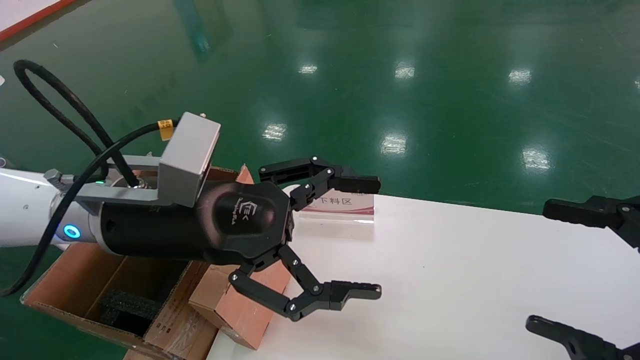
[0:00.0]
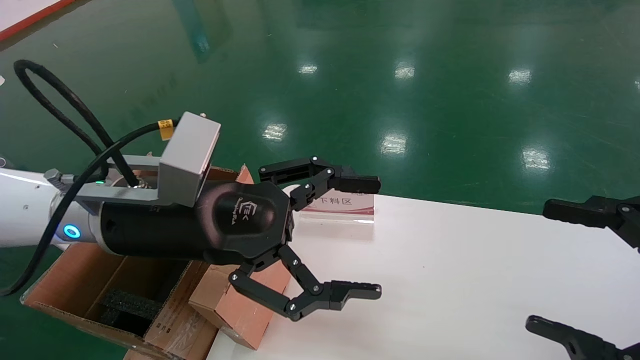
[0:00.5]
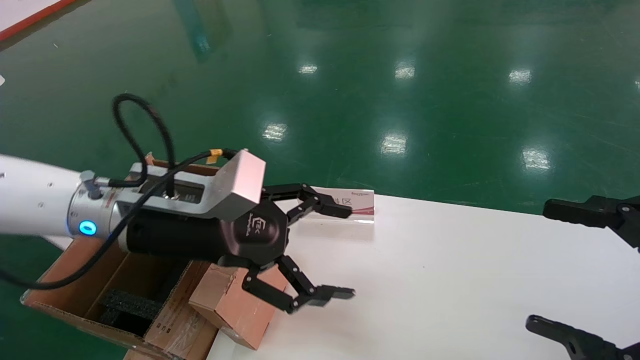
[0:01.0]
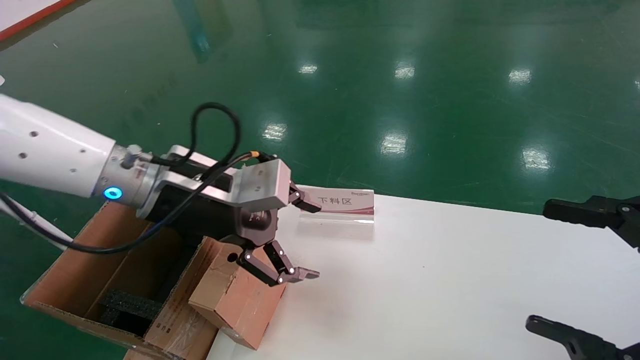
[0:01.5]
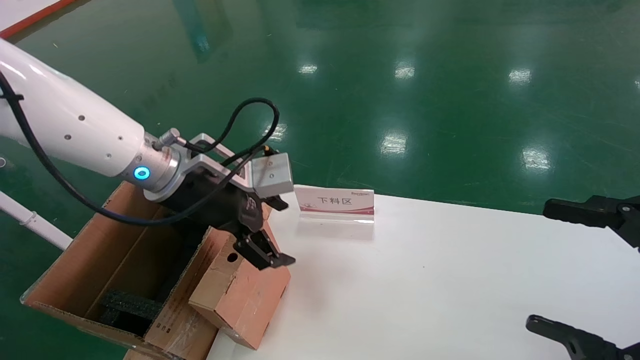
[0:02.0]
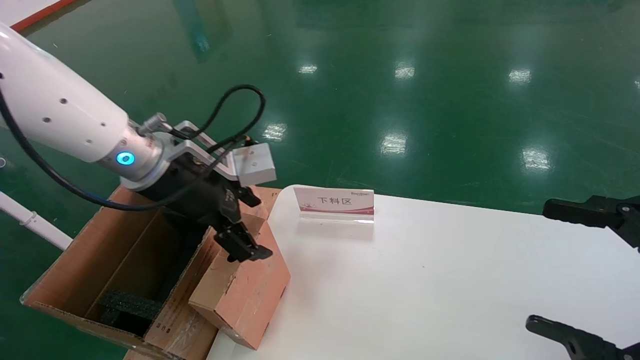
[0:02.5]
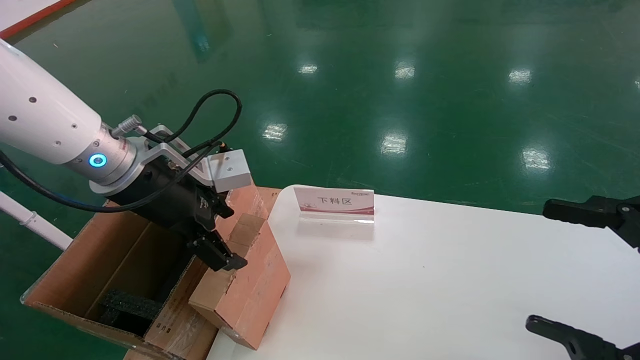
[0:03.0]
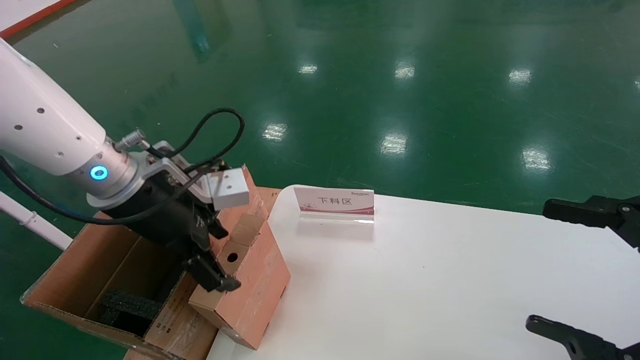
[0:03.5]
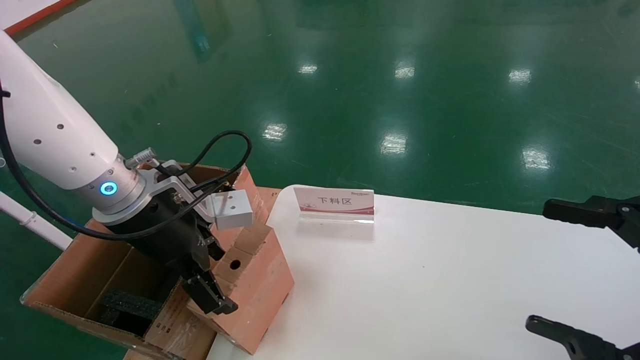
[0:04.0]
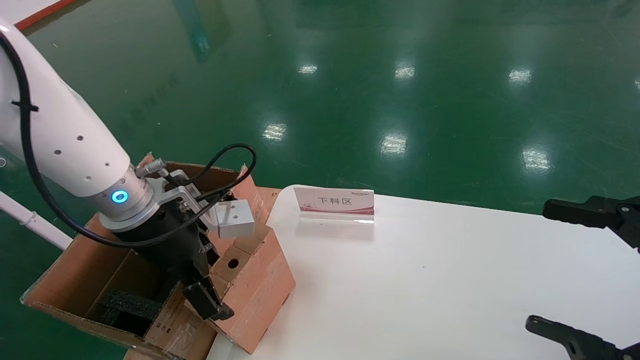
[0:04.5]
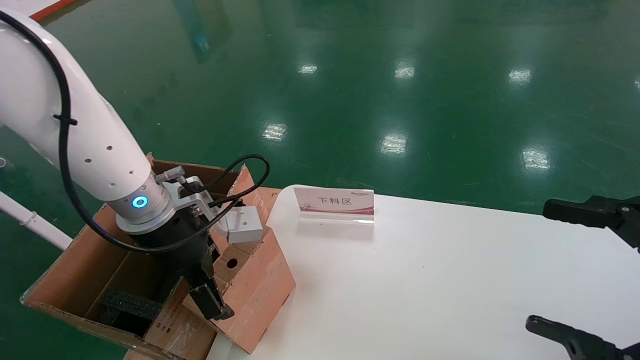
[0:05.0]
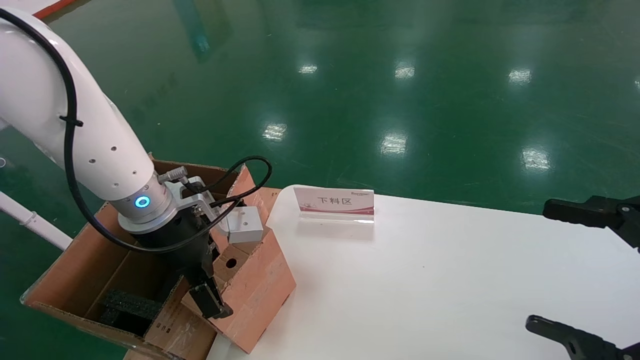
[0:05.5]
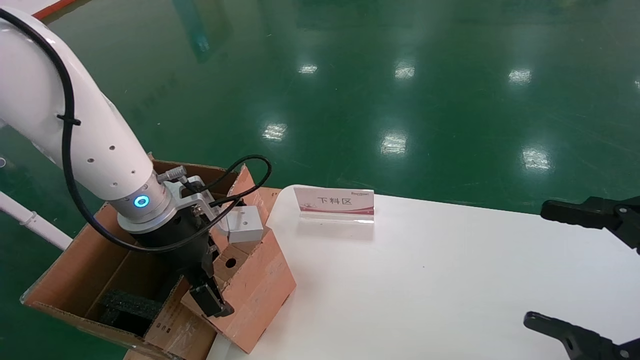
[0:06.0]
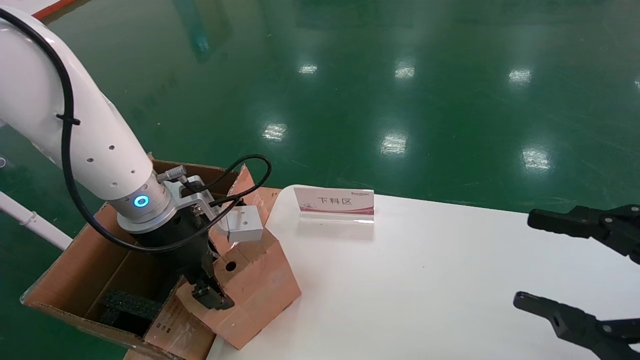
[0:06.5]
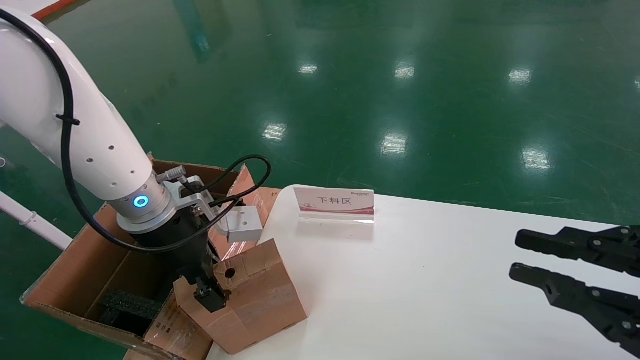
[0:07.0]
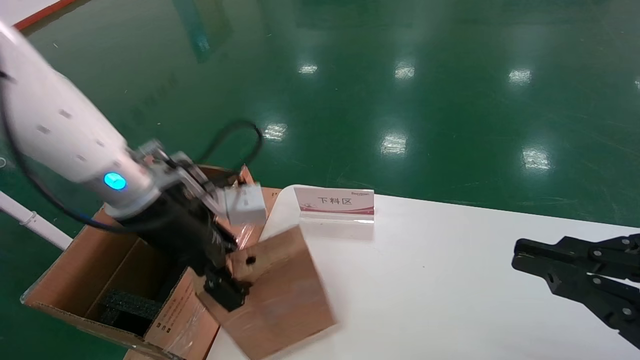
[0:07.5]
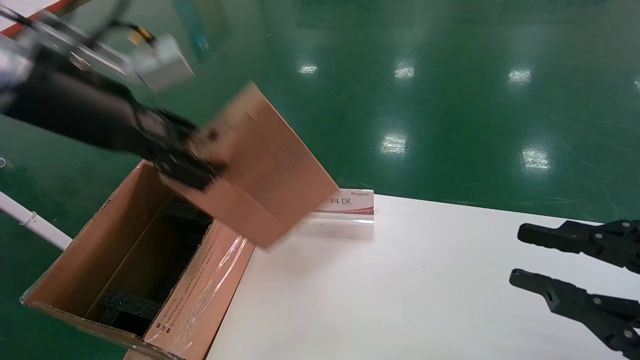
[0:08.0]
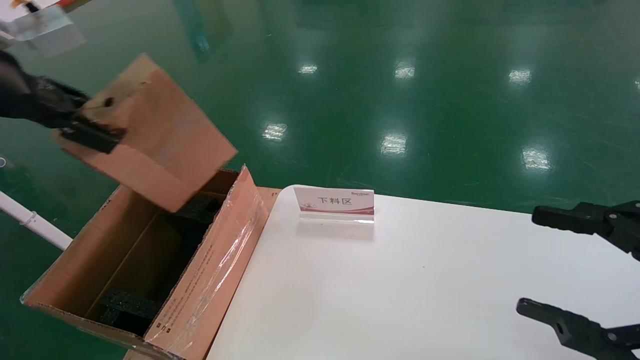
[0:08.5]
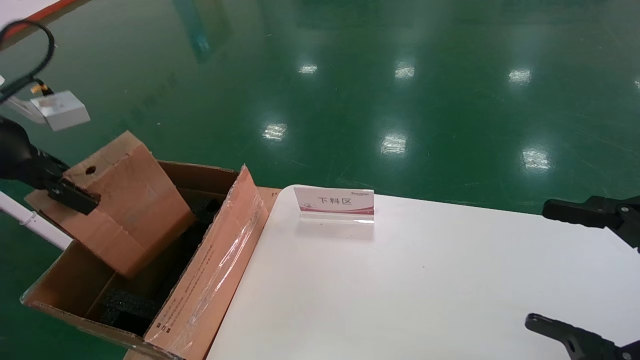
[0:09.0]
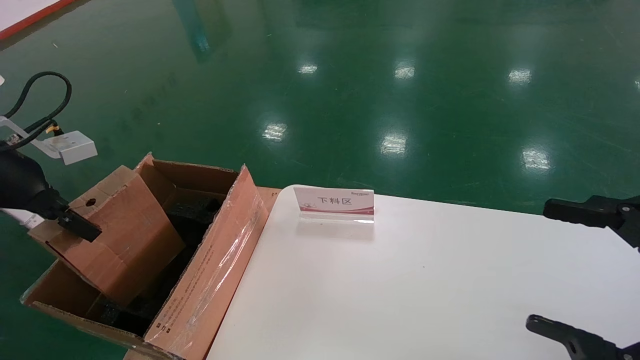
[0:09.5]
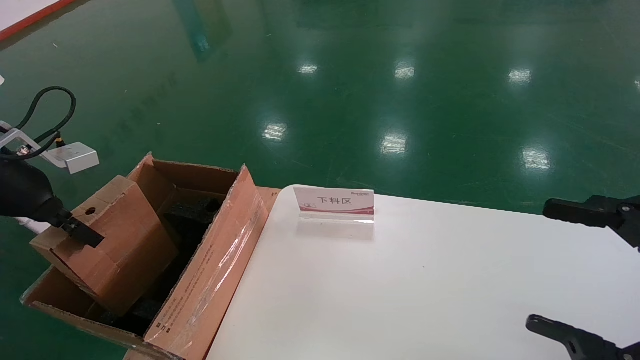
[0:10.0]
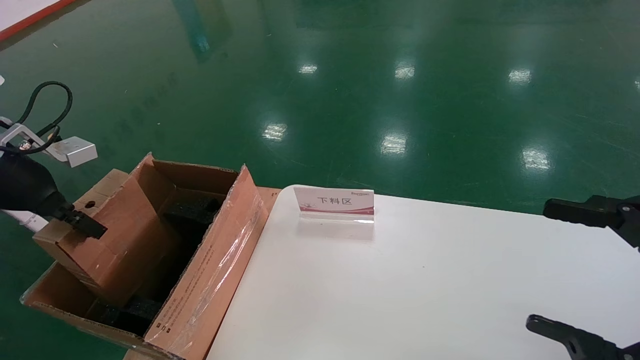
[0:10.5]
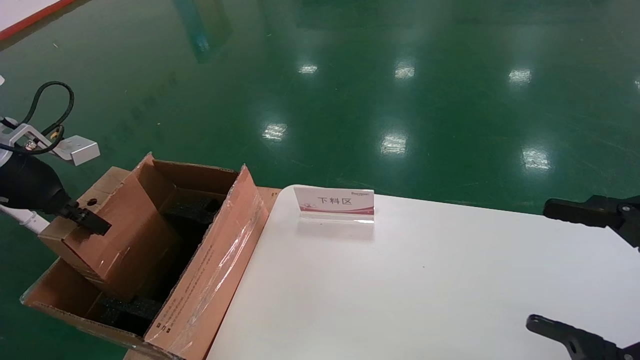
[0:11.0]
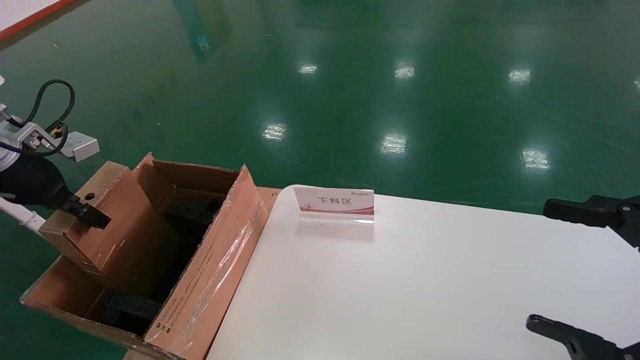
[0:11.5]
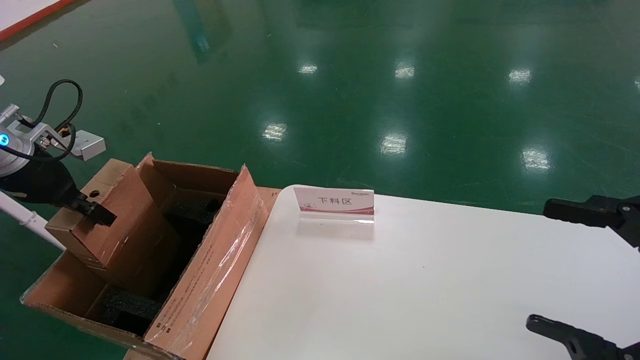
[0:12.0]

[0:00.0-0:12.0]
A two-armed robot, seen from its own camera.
Task of the whole recording: pick up the small cardboard box and load it into the large cardboard box.
Step, 0:01.0 to 0:05.5: Pick up the mouse and power cord box.
0:00.0 to 0:02.0: The left gripper goes roughly 10 cm forward.
0:04.0 to 0:06.0: The grippers make only small movements.
0:06.0 to 0:08.0: The right gripper closes up. The left gripper moves upward and to the left, about 15 cm, and closes its fingers.
0:08.0 to 0:10.0: The left gripper goes roughly 20 cm to the left and downward, while the right gripper opens up.
0:10.0 to 0:12.0: The grippers make only small movements.

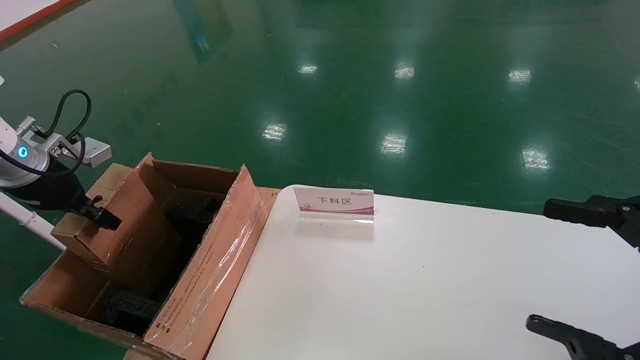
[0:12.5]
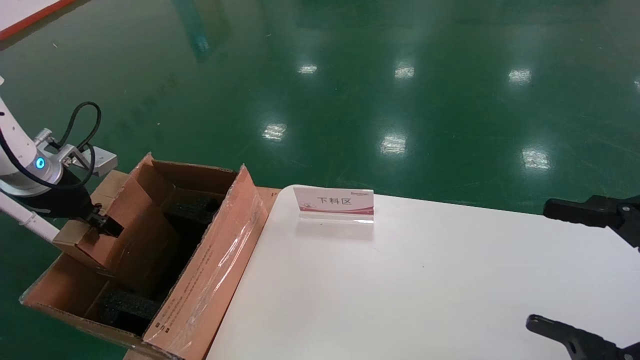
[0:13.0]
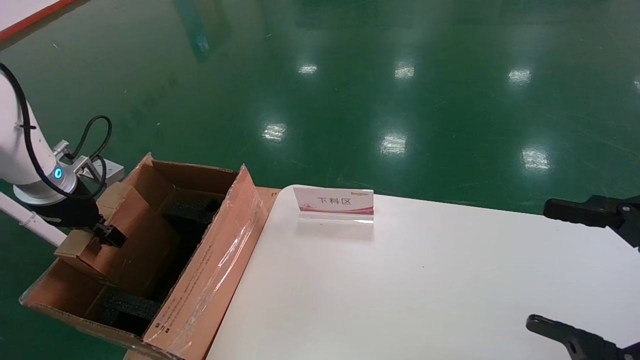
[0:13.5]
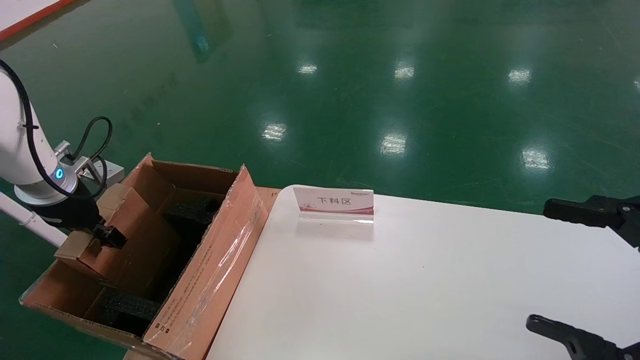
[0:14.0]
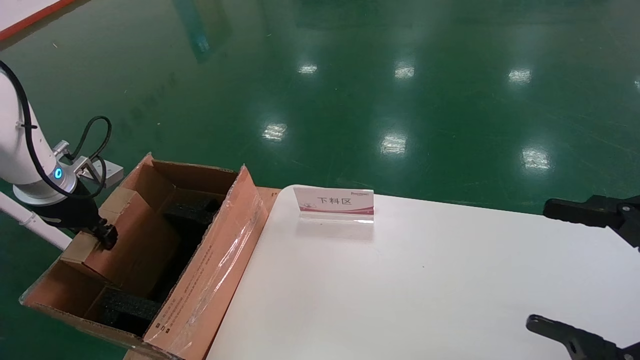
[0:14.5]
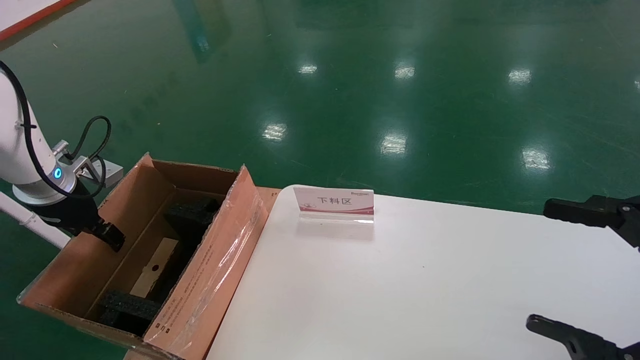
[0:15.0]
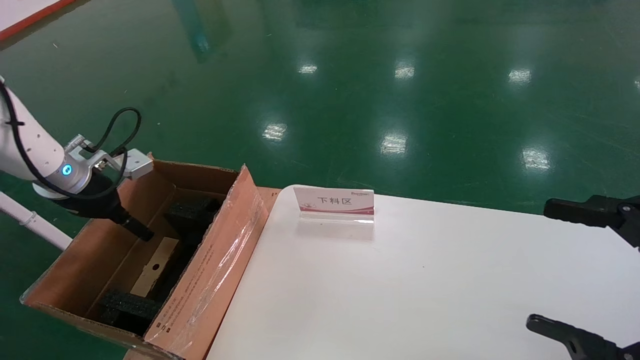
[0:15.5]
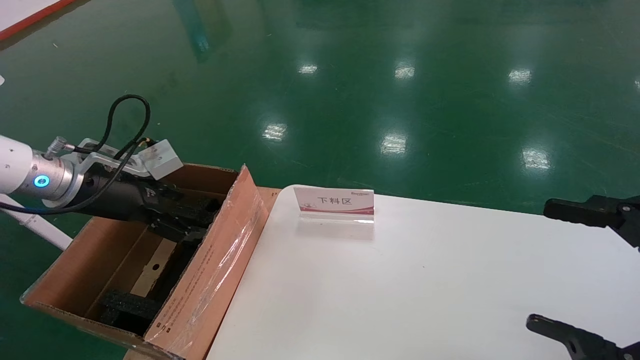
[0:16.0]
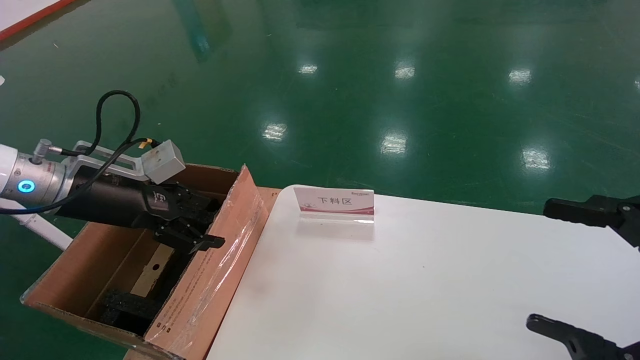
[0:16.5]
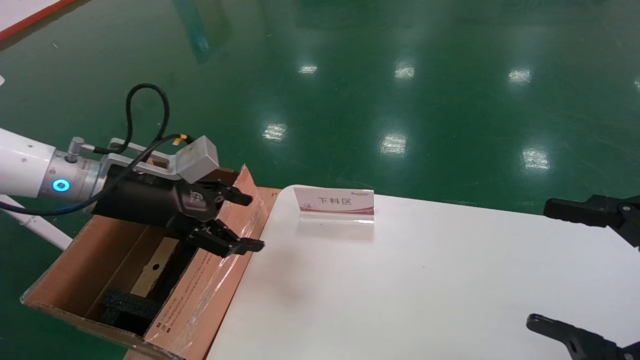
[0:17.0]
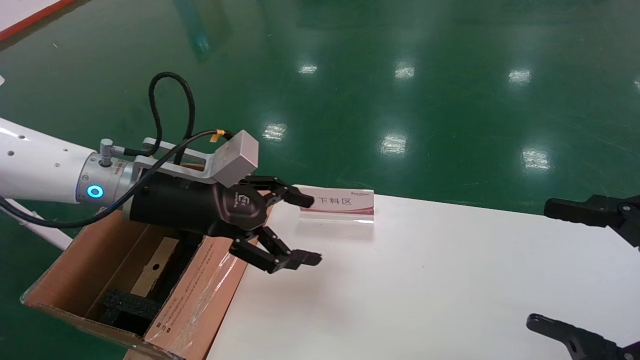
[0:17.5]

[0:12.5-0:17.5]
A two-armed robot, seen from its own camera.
Task of the whole recording: pick up the small cardboard box and load it into the large cardboard box.
0:12.5 to 0:15.0: The left gripper opens.
0:15.0 to 0:17.5: The left gripper travels to the right by roughly 20 cm.
